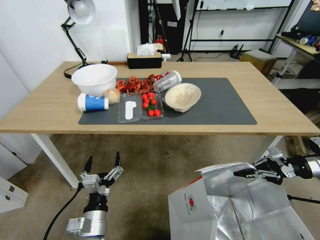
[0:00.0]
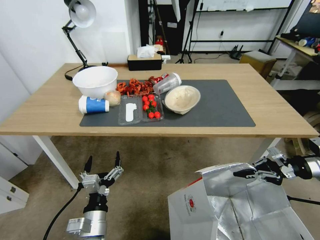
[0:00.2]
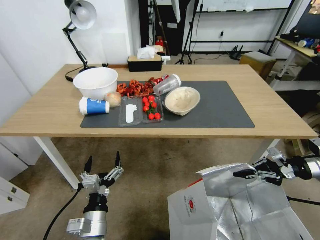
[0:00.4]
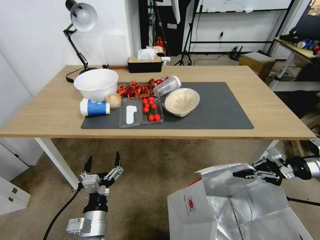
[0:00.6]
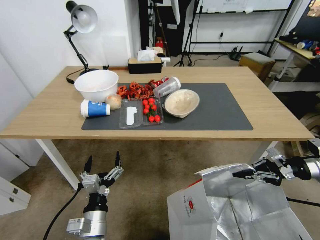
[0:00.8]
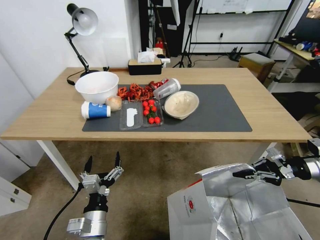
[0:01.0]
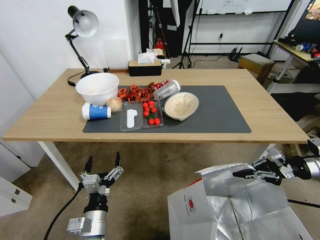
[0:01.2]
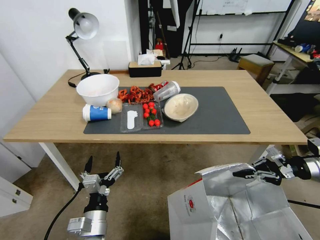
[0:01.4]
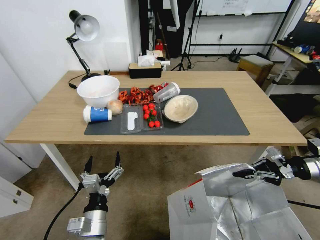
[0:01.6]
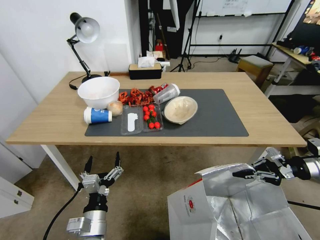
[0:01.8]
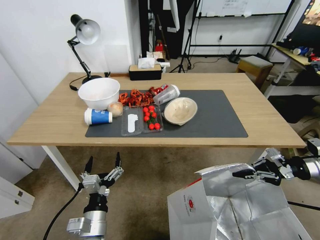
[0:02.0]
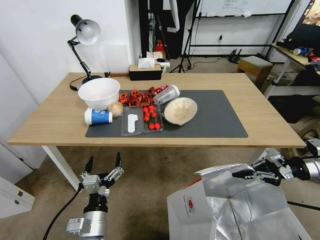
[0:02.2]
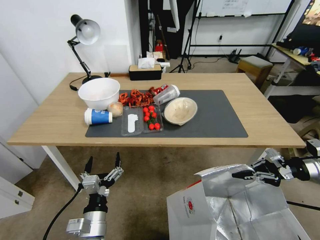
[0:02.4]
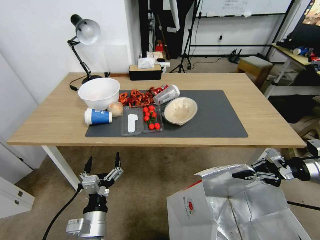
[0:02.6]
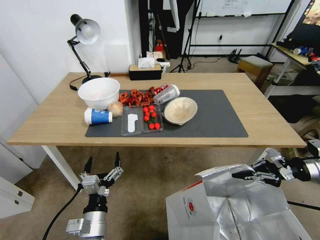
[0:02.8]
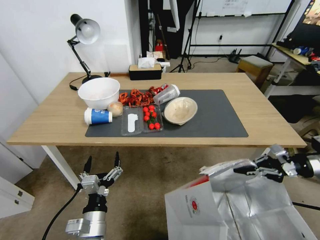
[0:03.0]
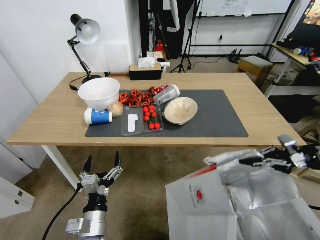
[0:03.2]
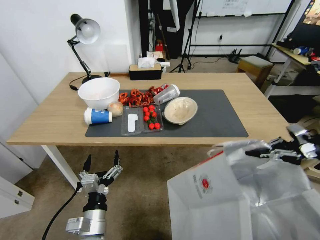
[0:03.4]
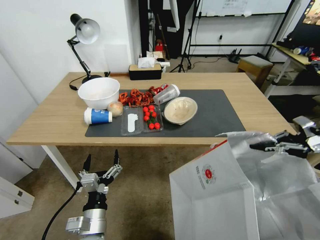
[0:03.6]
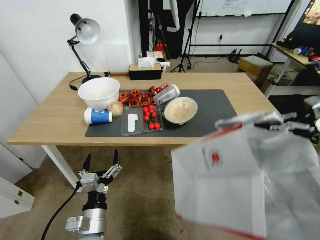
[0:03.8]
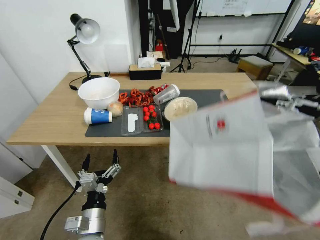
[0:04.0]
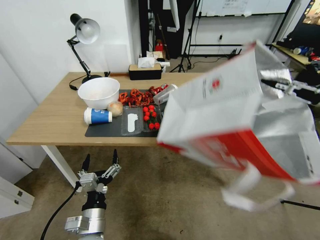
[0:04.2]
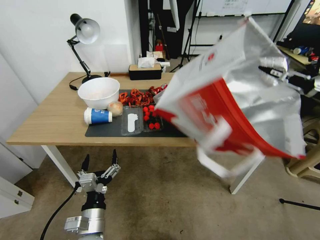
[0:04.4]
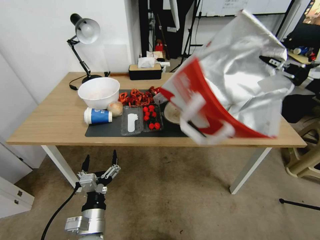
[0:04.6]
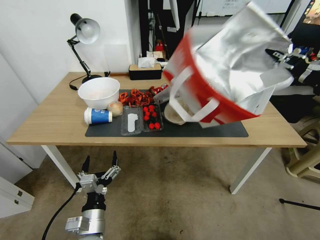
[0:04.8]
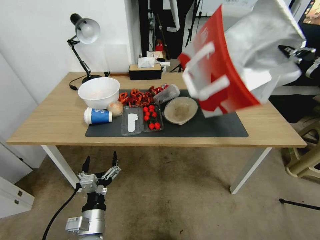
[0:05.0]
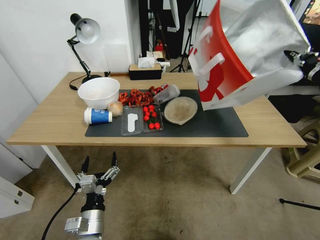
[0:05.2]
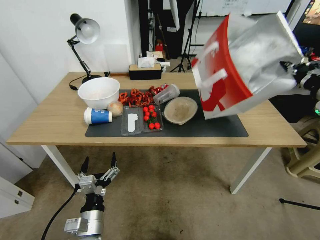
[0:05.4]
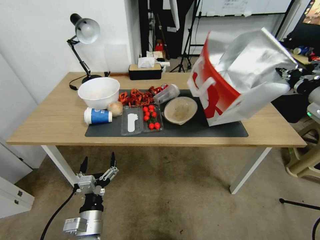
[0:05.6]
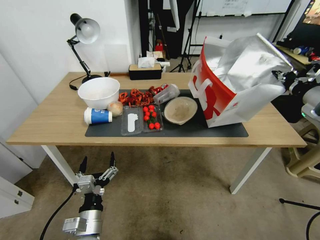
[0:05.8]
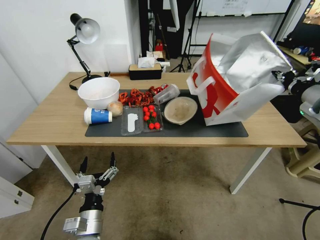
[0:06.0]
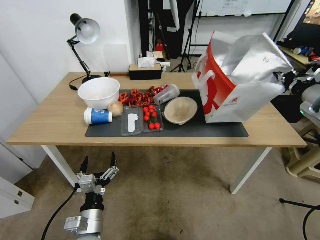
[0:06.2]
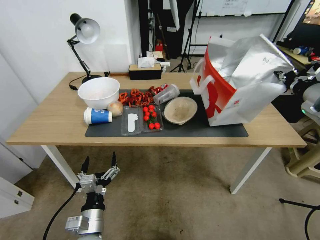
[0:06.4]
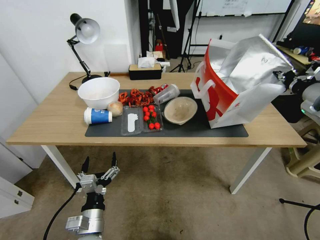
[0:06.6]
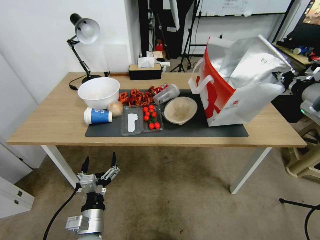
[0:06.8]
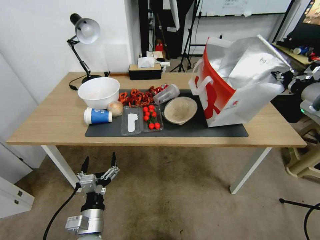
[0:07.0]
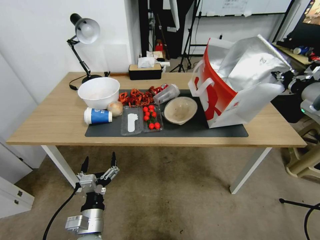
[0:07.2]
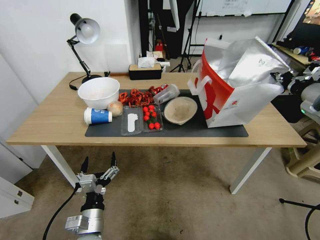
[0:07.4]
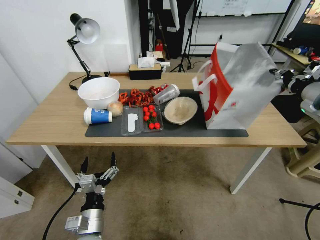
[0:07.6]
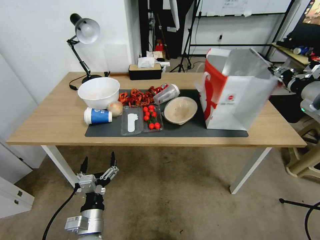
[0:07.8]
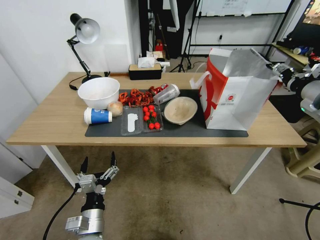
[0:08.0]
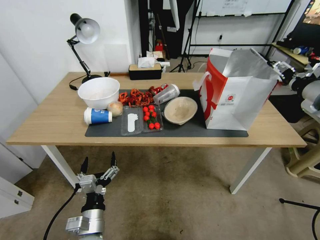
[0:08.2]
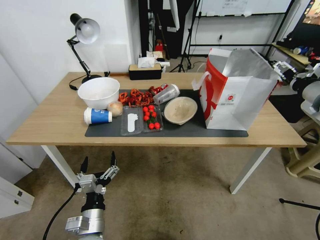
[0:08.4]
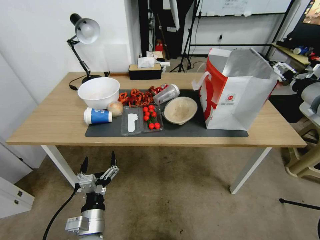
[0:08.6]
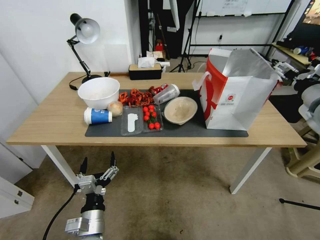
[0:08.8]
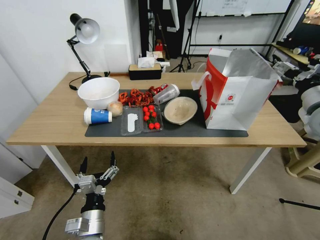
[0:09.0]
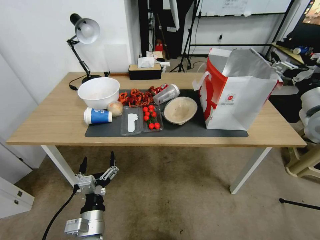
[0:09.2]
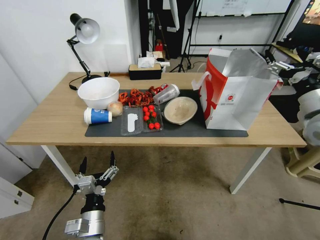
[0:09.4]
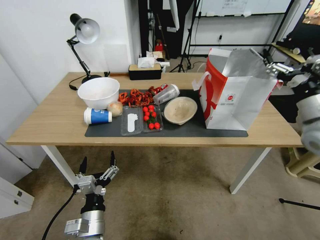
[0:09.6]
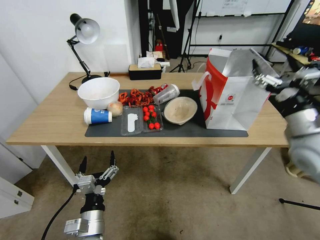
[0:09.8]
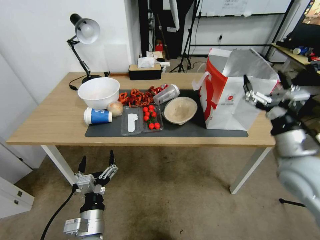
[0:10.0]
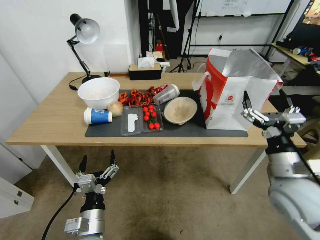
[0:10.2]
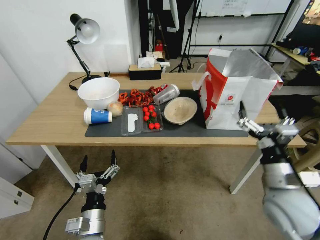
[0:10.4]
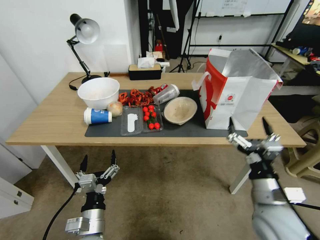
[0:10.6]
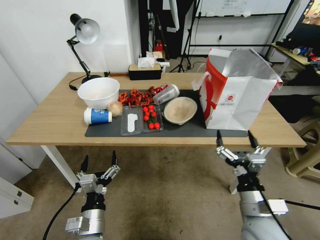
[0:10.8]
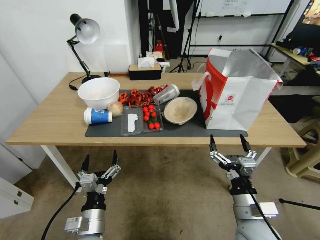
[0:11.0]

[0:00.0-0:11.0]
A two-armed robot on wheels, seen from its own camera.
Task of the whole recording: Pick up the food delivery bag from the floor and place it on the table.
0:03.2 to 0:04.8: The right gripper shifts about 15 cm upward and to the left.
0:04.8 to 0:06.2: The right gripper changes place by about 5 cm.
0:06.2 to 0:07.8: The right gripper opens its fingers.
0:07.8 to 0:09.4: The right gripper shifts about 5 cm downward, and opens.
0:09.4 to 0:11.0: The right gripper shifts about 35 cm downward, backward and to the left.

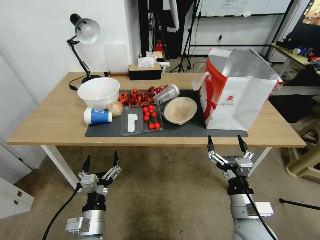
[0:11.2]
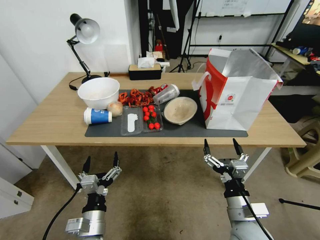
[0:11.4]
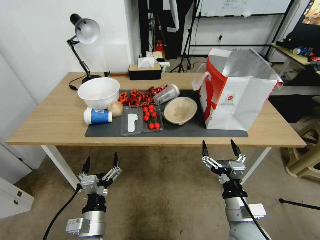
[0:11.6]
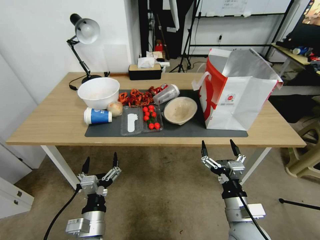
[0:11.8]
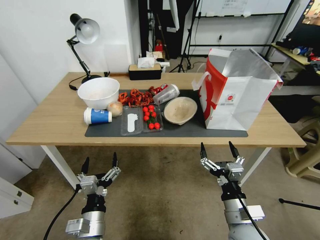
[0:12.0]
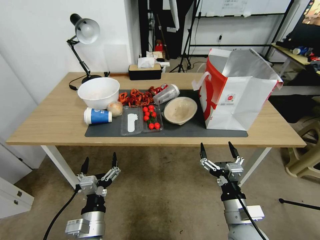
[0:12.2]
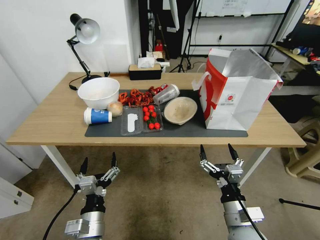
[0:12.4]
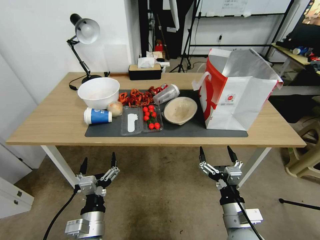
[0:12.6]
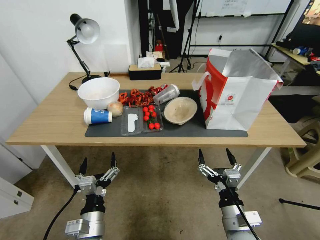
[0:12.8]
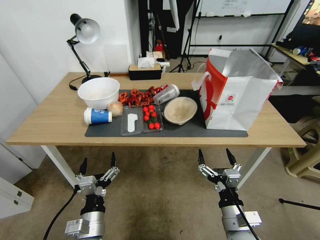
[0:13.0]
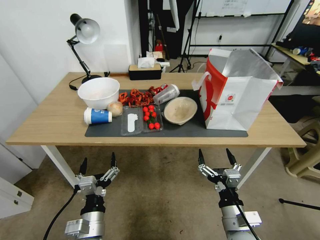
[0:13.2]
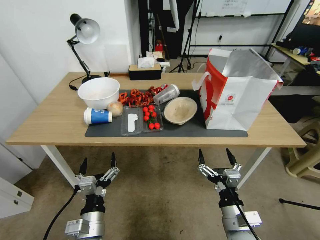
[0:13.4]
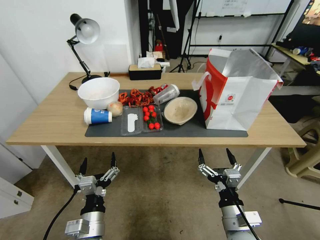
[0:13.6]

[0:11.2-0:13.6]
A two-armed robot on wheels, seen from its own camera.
Task of the whole recording: Pick up the food delivery bag from the floor and place it on the table.
0:11.2 to 0:12.4: The grippers move only a little.
0:12.4 to 0:13.6: The two grippers keep their place.

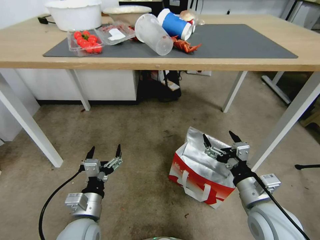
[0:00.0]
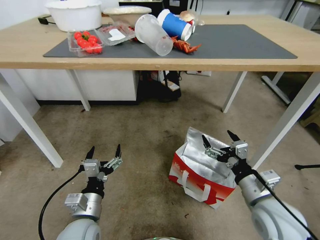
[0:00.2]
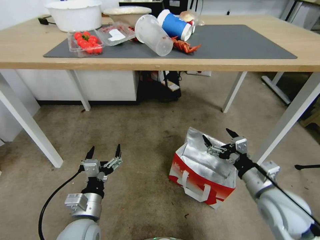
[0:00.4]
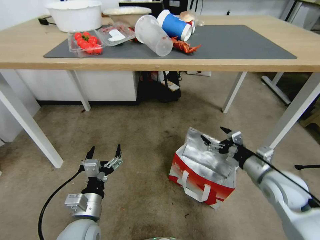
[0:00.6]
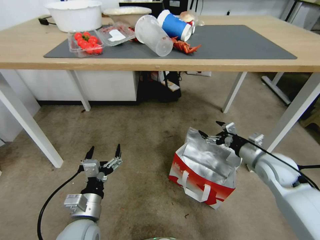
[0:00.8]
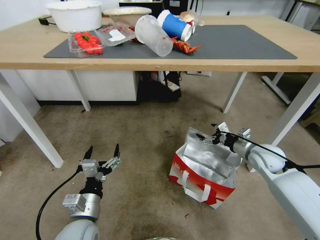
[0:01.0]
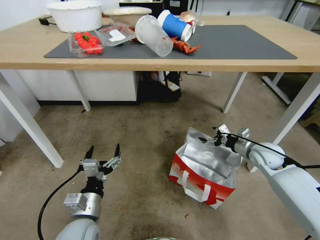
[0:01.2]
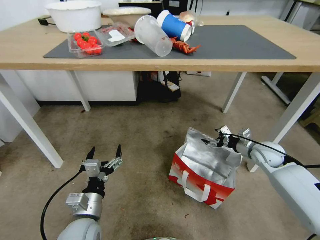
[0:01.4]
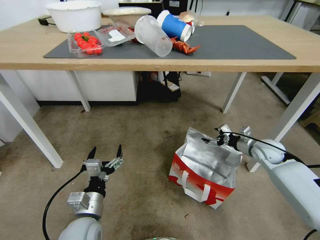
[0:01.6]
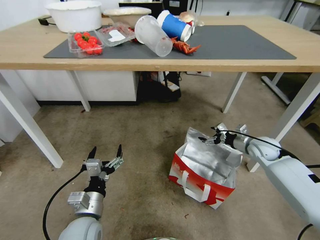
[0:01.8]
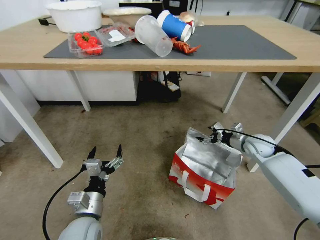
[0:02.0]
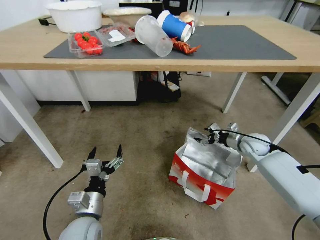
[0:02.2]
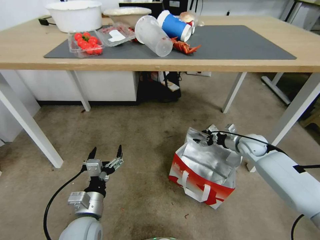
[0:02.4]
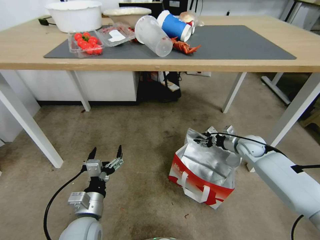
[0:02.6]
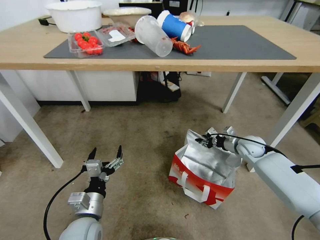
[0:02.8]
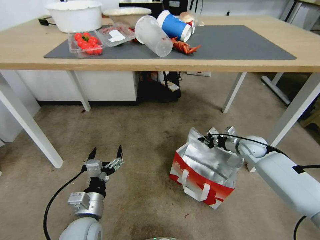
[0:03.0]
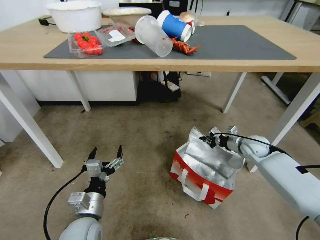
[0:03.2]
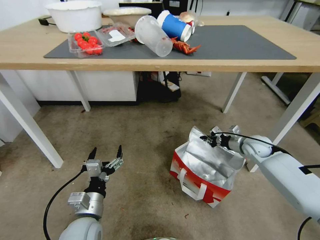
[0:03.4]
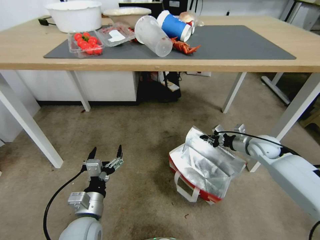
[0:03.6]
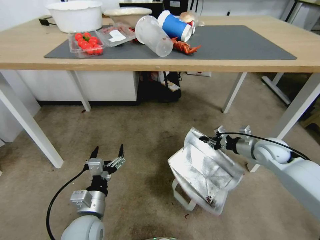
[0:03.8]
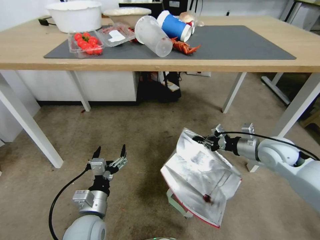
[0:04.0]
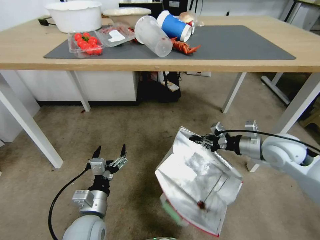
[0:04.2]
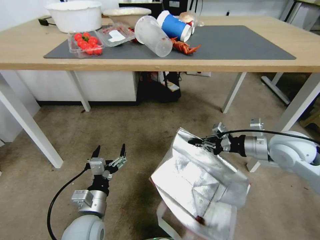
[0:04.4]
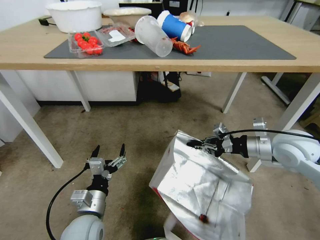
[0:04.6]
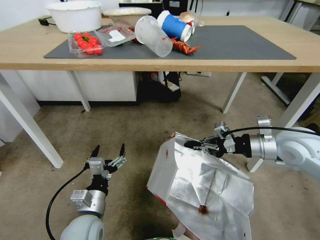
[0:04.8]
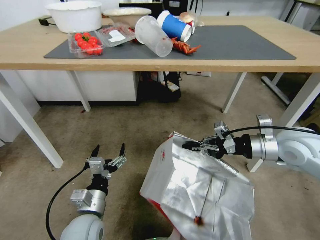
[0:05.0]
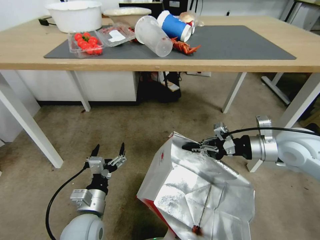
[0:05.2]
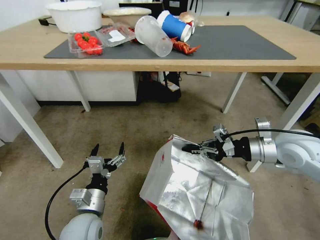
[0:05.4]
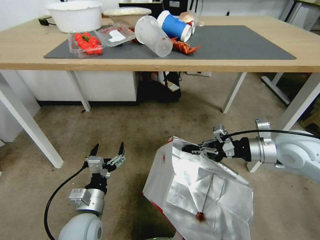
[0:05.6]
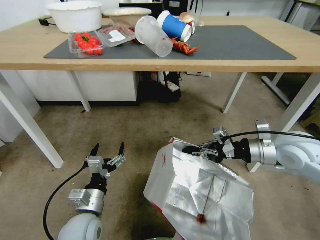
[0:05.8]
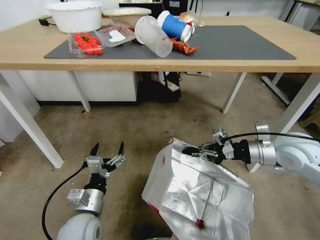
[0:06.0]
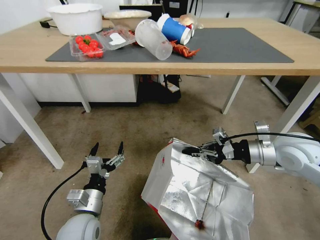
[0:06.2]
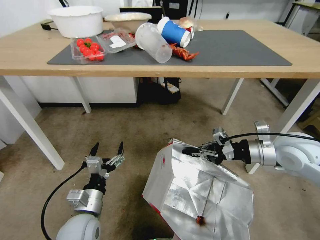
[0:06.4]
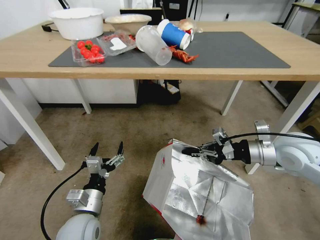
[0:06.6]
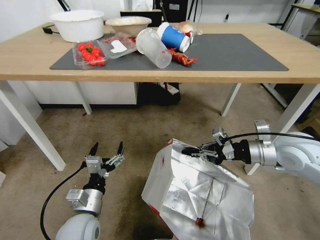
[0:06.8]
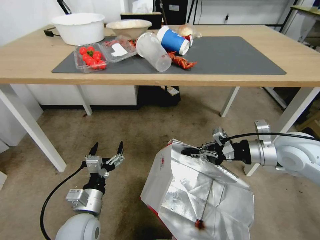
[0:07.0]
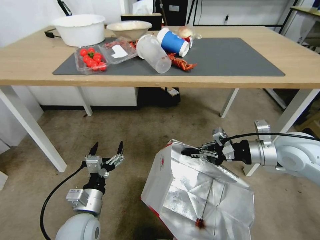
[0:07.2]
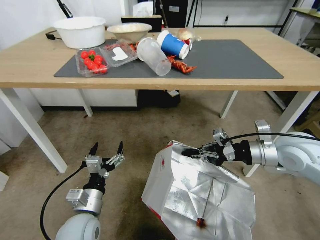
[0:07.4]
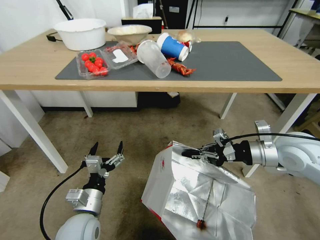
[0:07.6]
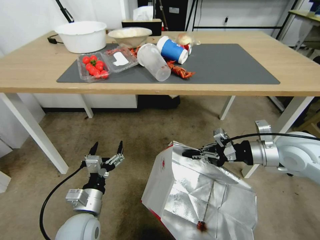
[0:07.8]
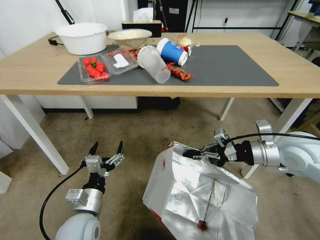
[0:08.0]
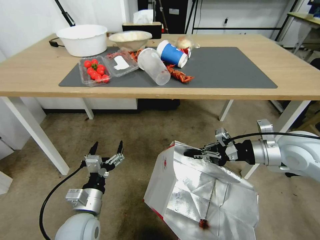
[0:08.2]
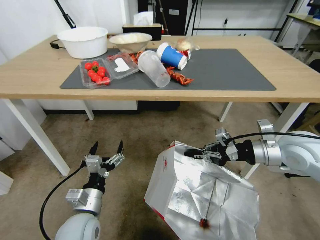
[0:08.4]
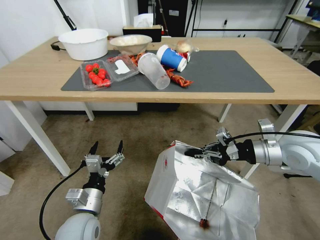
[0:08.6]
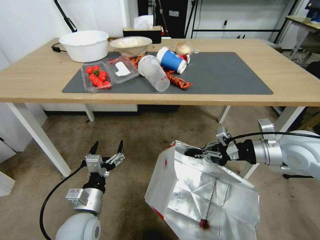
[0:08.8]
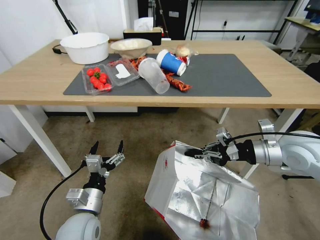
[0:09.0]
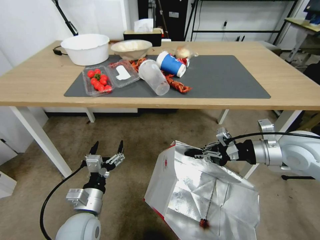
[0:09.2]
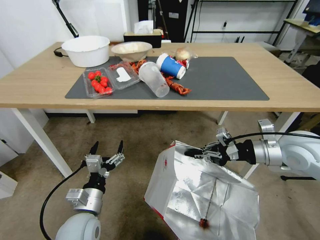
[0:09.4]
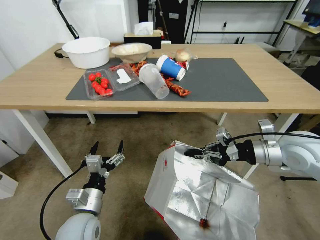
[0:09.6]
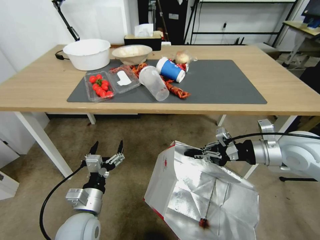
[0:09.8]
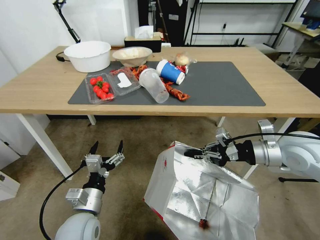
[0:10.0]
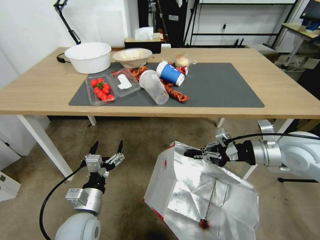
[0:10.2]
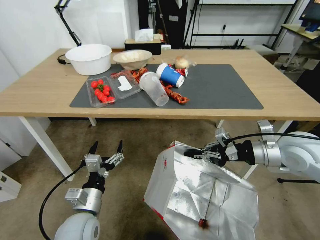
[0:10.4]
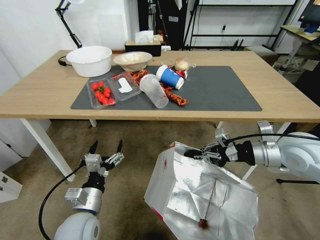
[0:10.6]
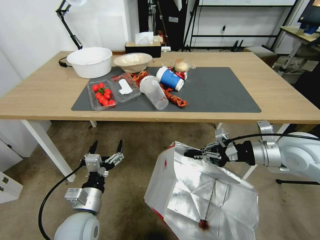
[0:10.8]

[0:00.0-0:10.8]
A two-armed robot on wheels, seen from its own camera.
Task of the whole recording: Pick up the food delivery bag from the floor and place it on the table.
0:00.0 to 0:01.6: The right gripper moves forward and to the right, roughly 25 cm.
0:01.6 to 0:03.0: The right gripper shifts by roughly 5 cm, and closes up.
0:03.0 to 0:04.6: The right gripper is displaced upward and backward by about 20 cm.
